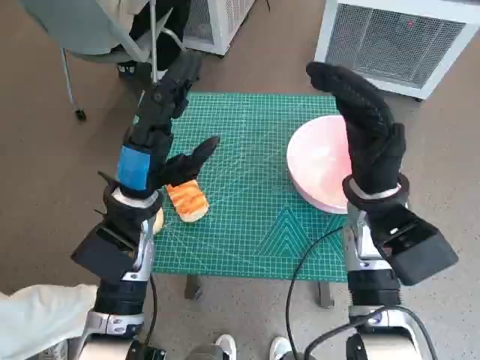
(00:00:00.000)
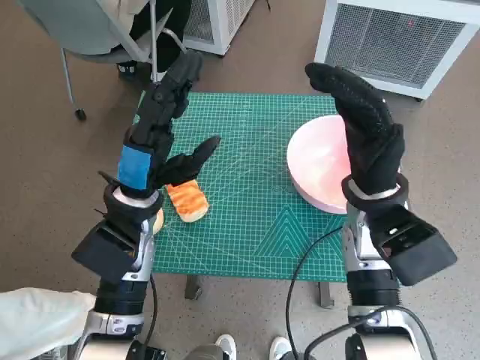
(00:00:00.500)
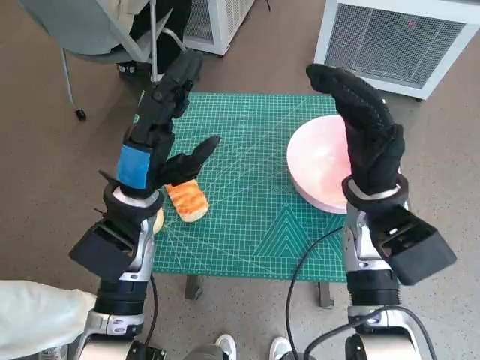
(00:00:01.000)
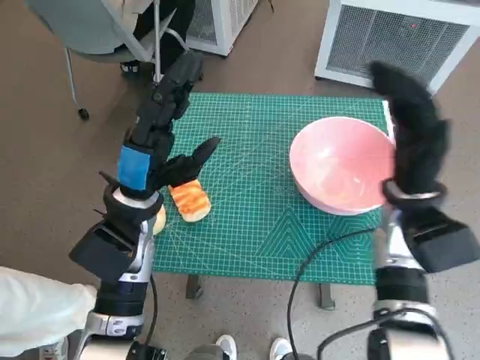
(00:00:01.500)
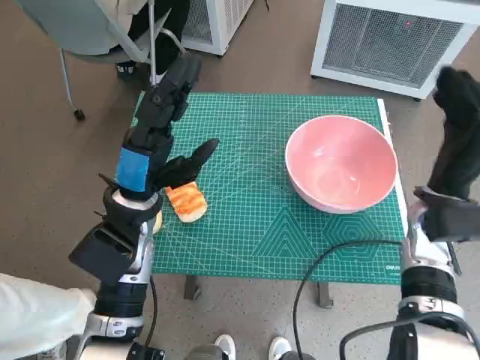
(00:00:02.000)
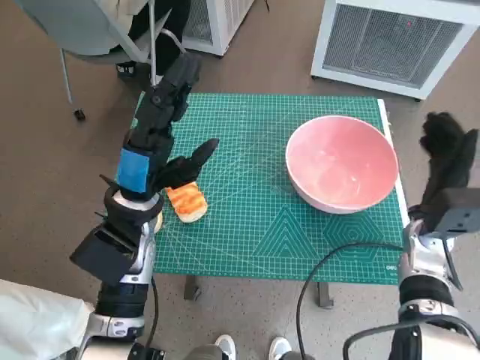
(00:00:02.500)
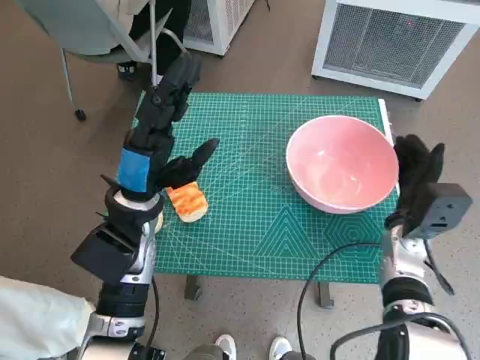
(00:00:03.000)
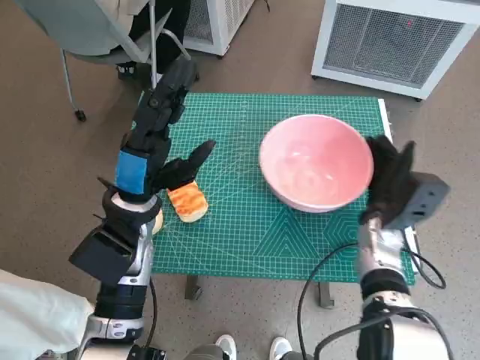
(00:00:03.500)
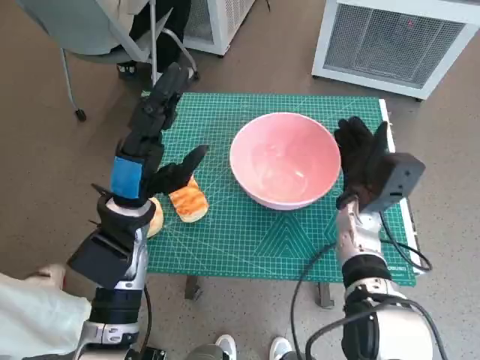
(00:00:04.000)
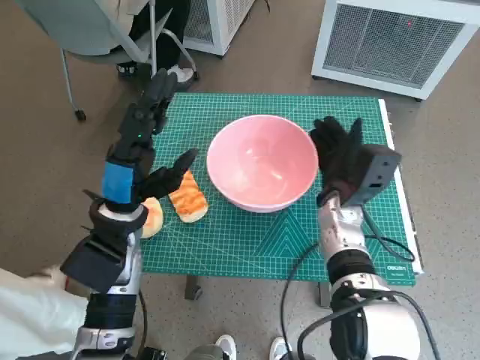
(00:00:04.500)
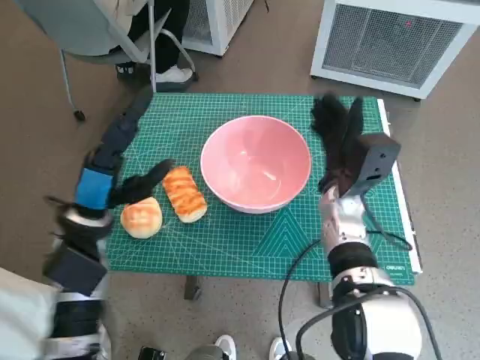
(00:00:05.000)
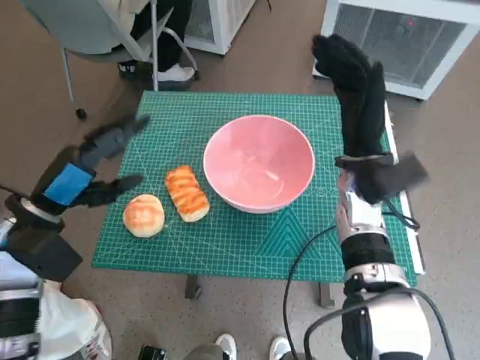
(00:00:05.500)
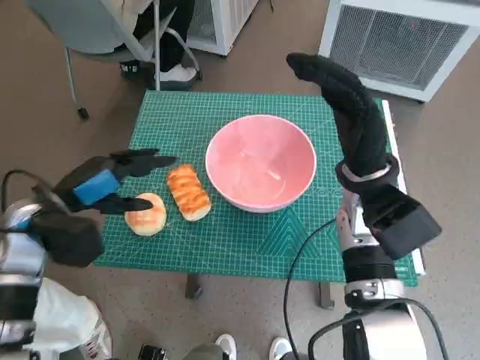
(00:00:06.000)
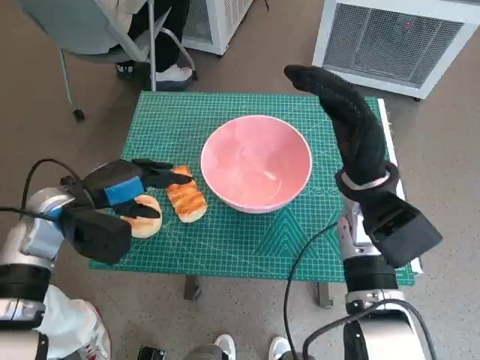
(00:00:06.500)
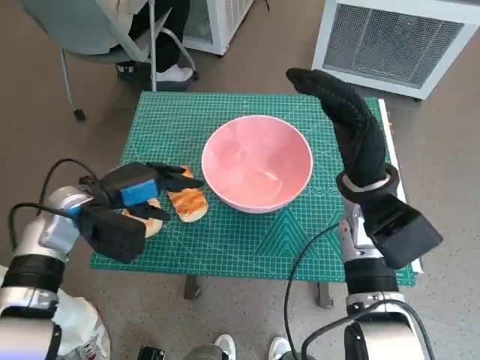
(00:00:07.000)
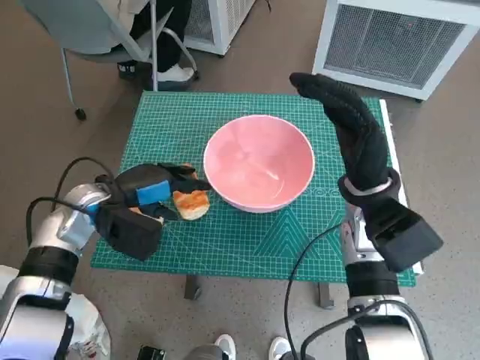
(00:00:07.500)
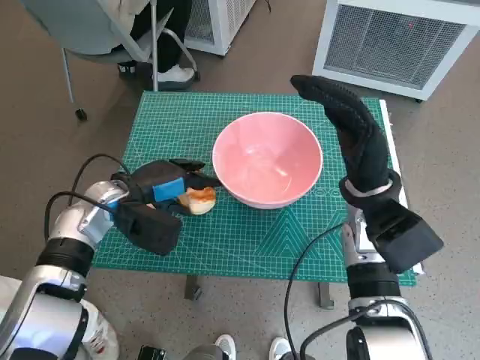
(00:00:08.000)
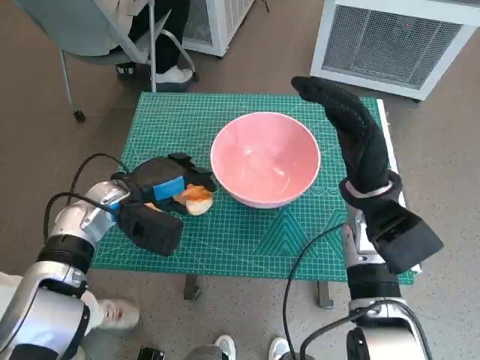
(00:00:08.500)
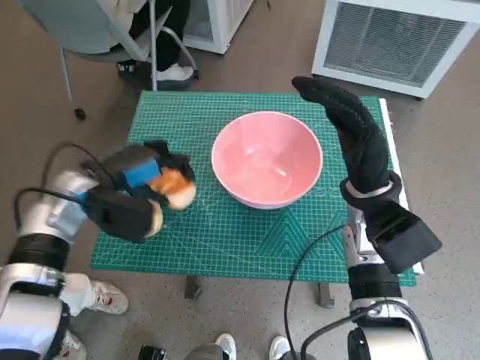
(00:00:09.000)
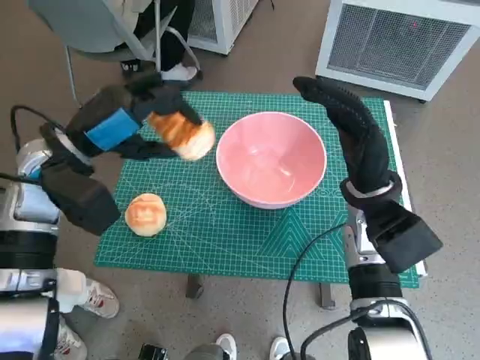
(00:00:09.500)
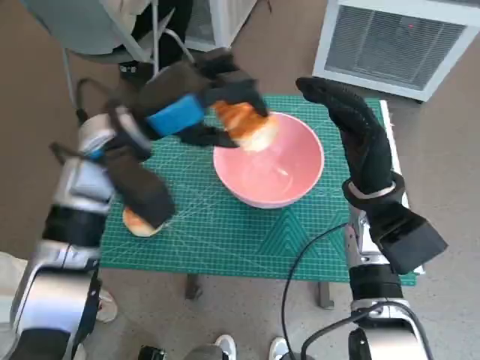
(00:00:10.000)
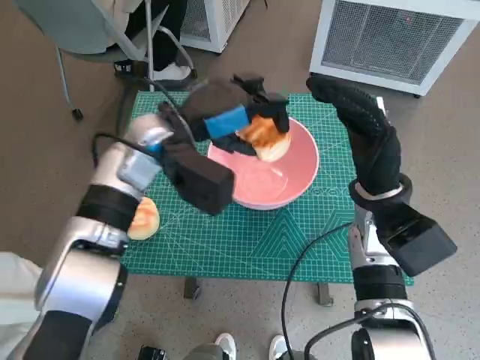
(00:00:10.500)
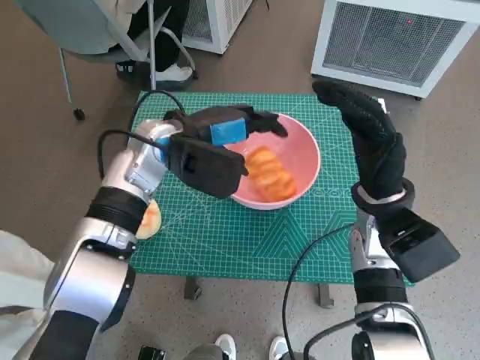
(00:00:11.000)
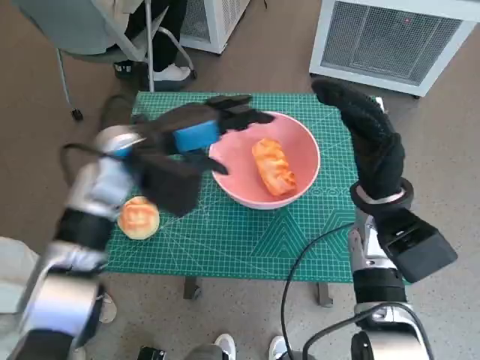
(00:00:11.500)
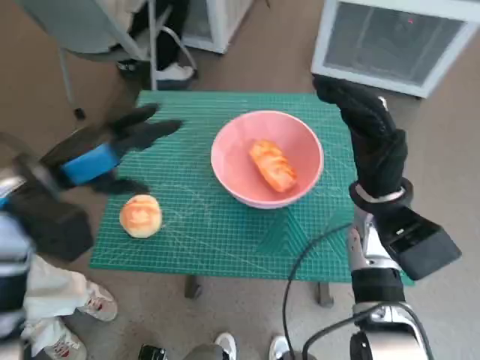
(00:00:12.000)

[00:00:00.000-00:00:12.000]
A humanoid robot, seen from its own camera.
Task of the whole recording: Push the bowl to the center of the table and put the bread into the bowl.
Step, 00:00:00.000 to 00:00:05.000: Move the pink bowl to the center of table with right hand.
Step, 00:00:05.500 to 00:00:08.000: Grasp the long bread with left hand.
Step, 00:00:08.500 to 00:00:11.000: Place the long bread in pink bowl with left hand.

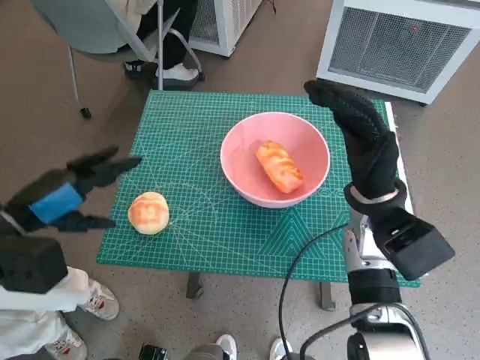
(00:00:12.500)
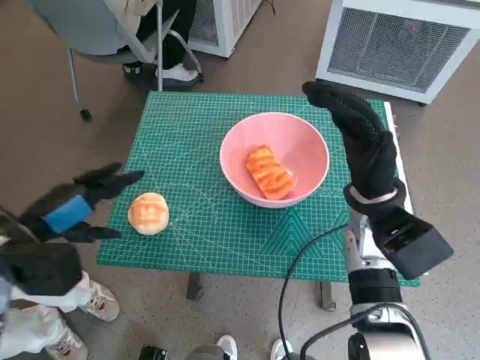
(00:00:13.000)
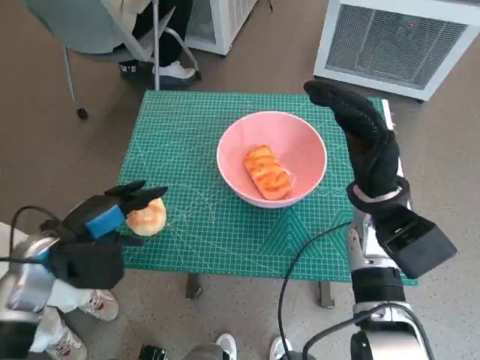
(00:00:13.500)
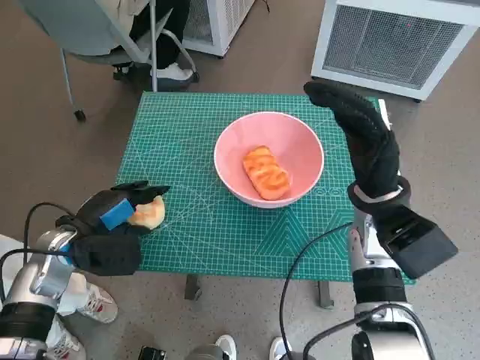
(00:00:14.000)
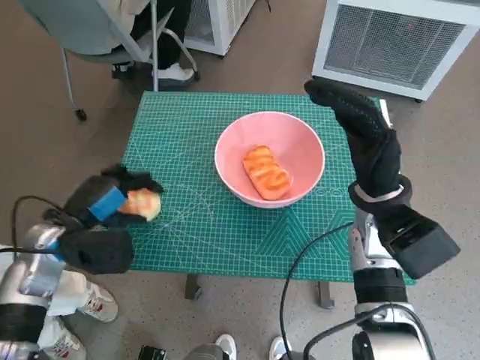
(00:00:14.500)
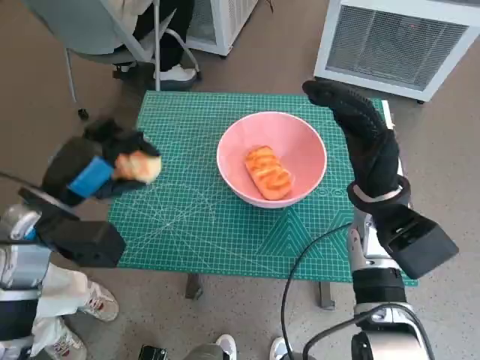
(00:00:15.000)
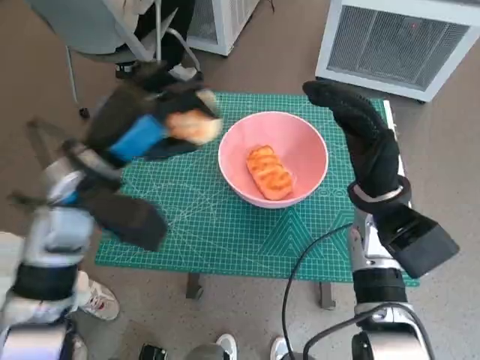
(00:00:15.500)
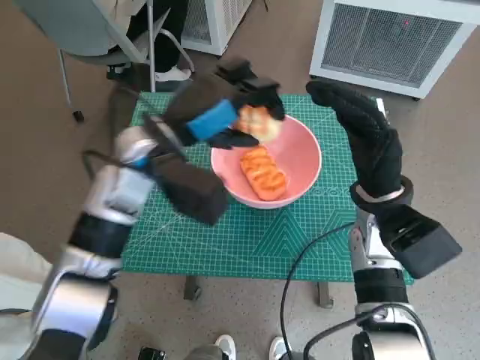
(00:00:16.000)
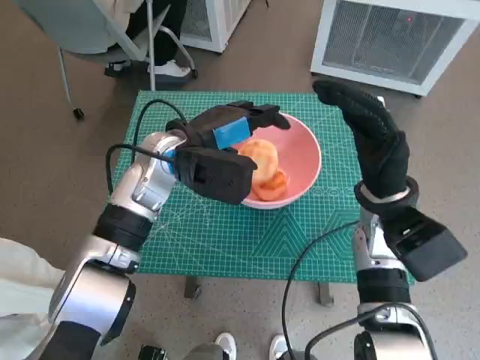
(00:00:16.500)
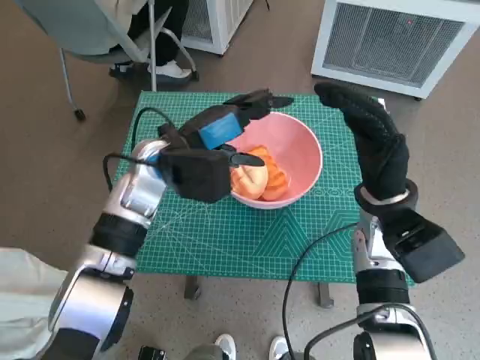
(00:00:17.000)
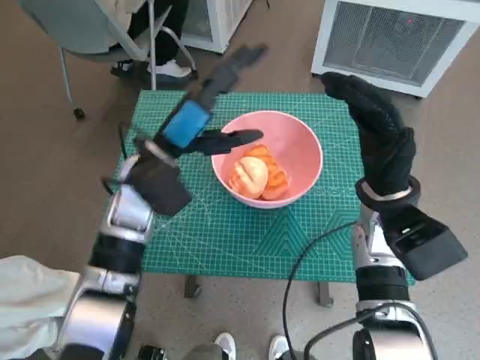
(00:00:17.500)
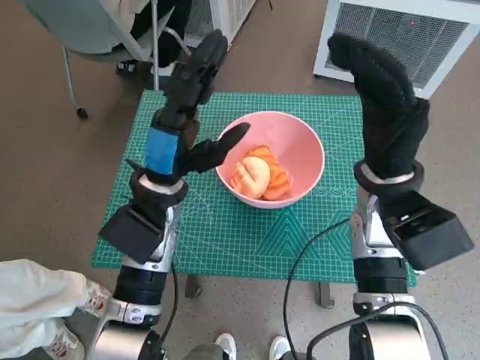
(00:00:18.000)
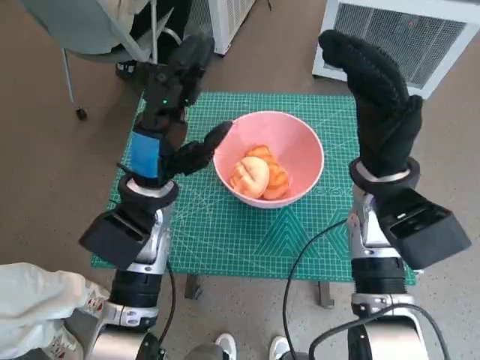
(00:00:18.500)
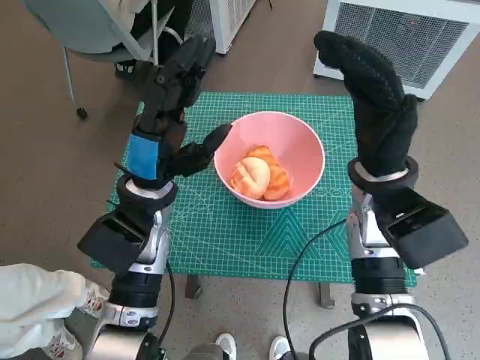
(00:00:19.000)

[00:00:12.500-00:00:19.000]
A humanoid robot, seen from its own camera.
Task of the whole recording: Push the bowl to the center of the table and put the bread into the bowl.
Step, 00:00:14.500 to 00:00:17.000: Place the round bread in pink bowl with left hand.
